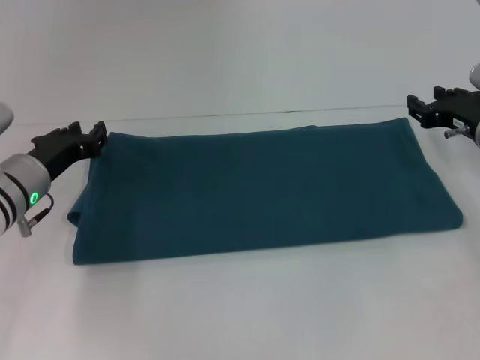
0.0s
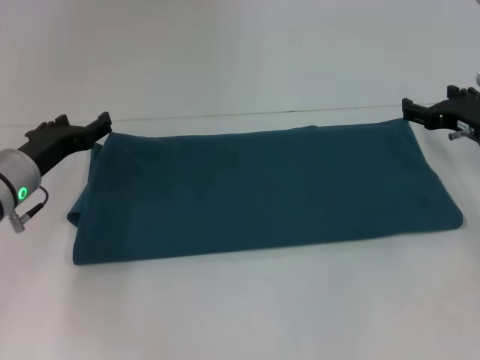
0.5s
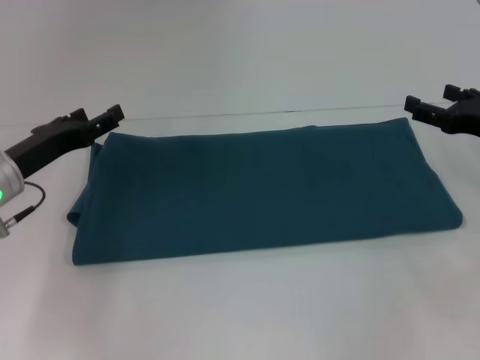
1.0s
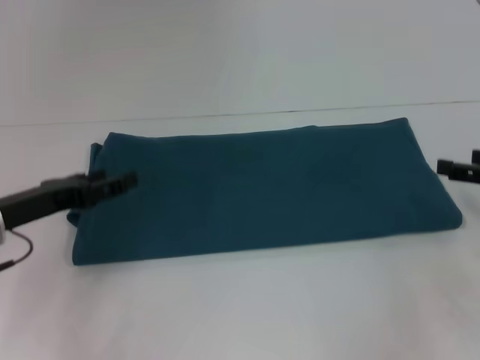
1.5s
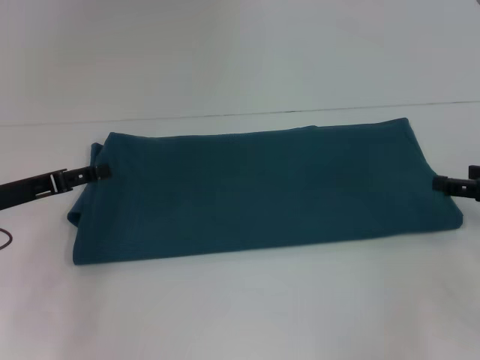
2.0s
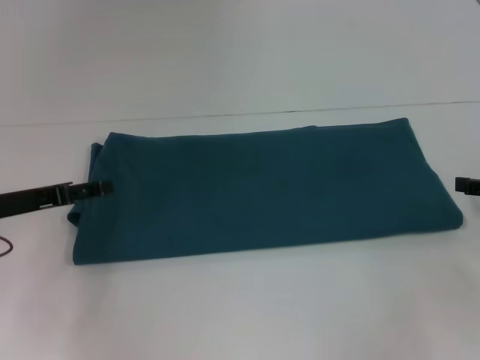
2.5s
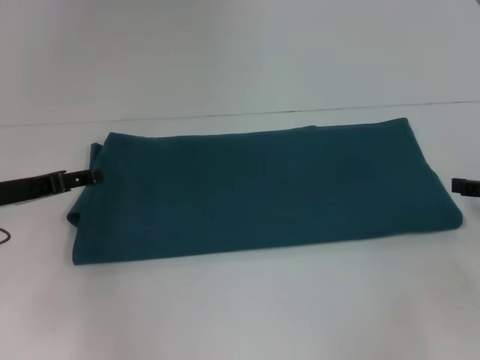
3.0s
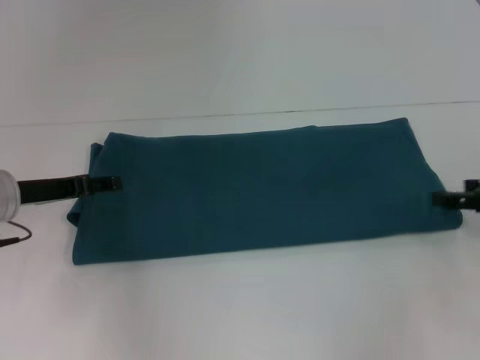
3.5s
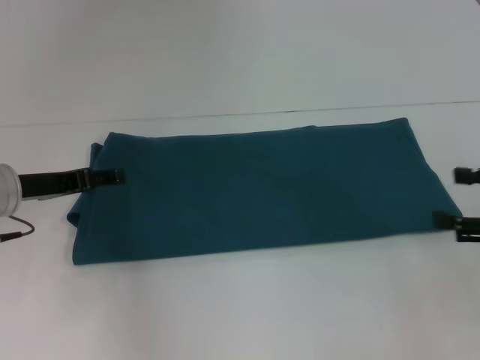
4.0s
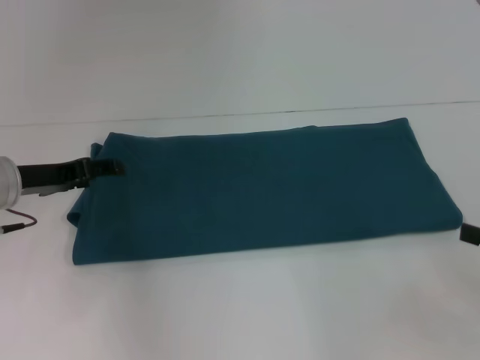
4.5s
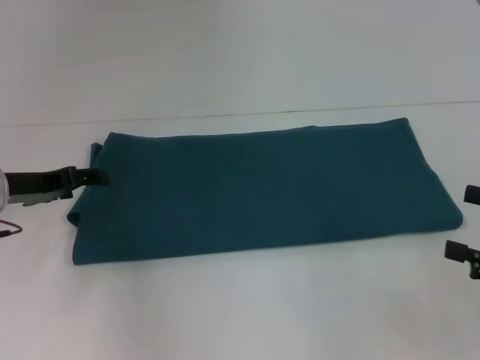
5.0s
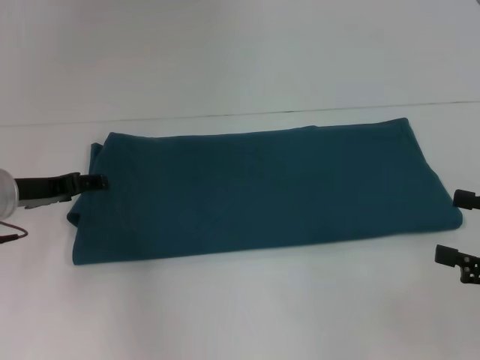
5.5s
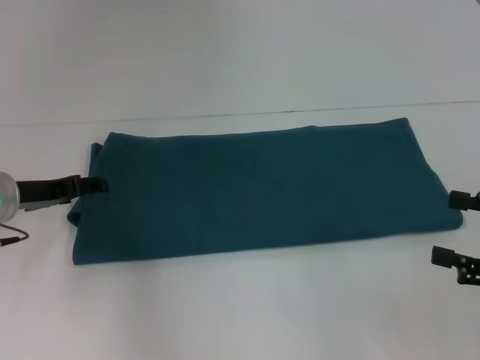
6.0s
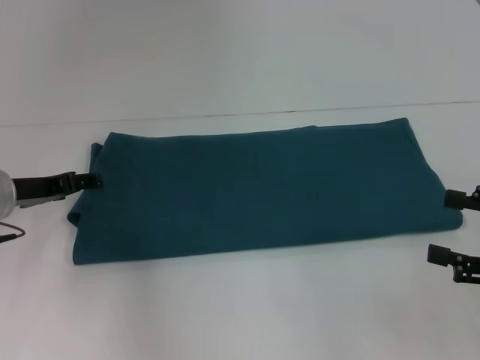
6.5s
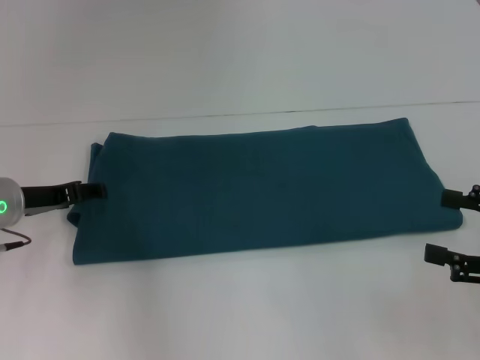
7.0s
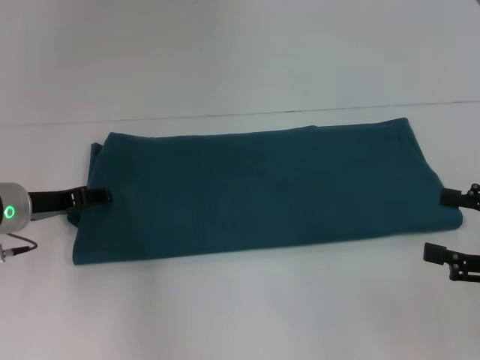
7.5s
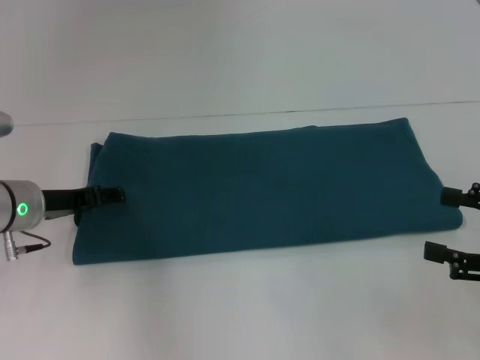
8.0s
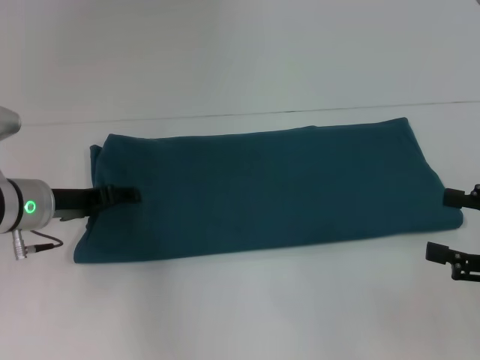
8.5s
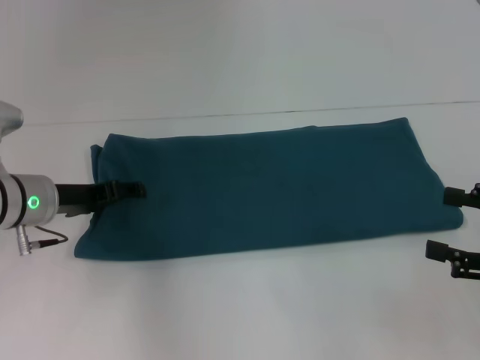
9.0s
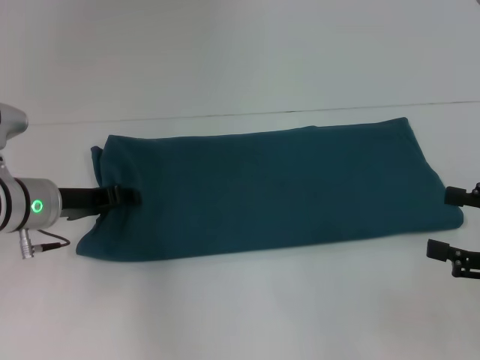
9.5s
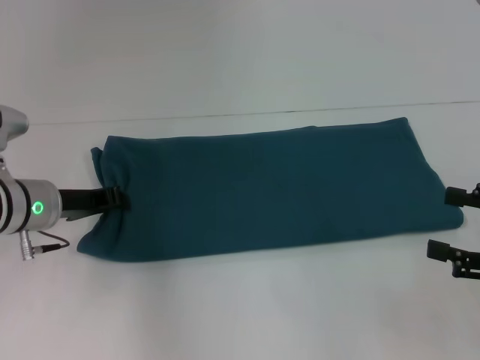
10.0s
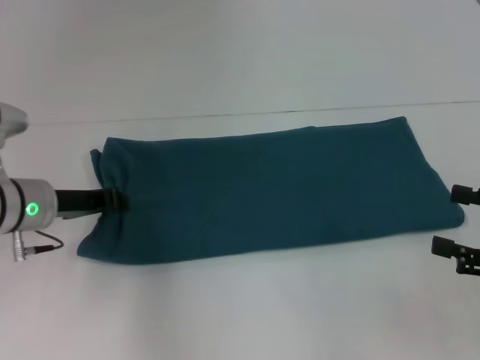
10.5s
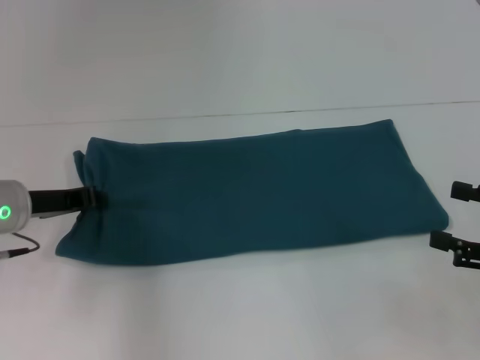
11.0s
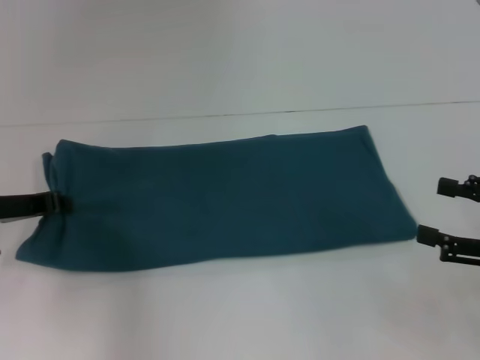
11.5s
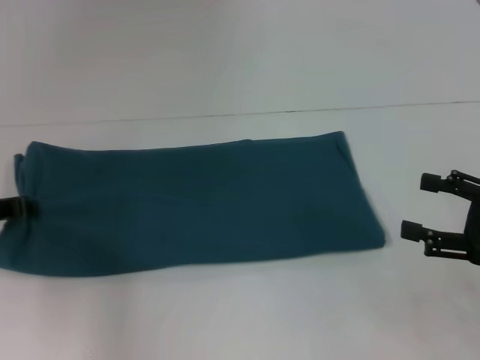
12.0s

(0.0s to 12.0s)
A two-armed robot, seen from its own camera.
0.0s - 2.0s: The left gripper shifts roughly 5 cm to the left, and opens its fingers. Meanwhile the right gripper goes approximately 10 cm backward and to the right, and opens.
2.0s - 4.0s: The right gripper heads backward, covering about 5 cm.
4.0s - 8.0s: There are only small adjustments of the grippers.
8.0s - 10.0s: The left gripper closes its fingers.
10.0s - 12.0s: The left gripper shifts approximately 10 cm to the left.

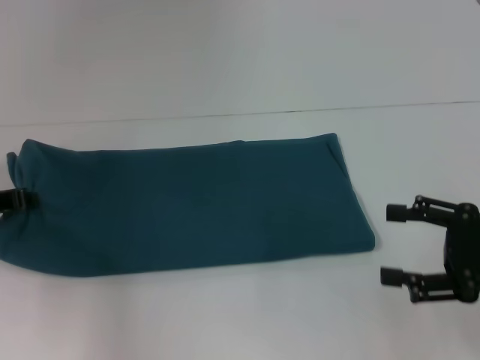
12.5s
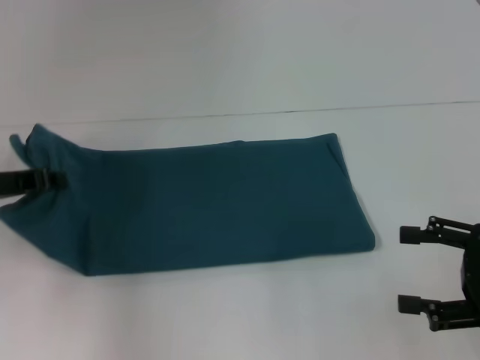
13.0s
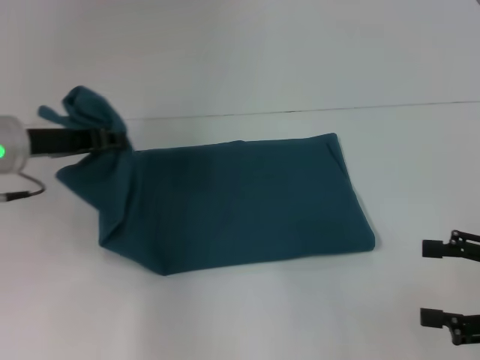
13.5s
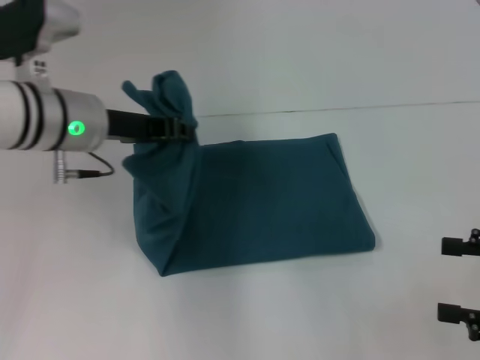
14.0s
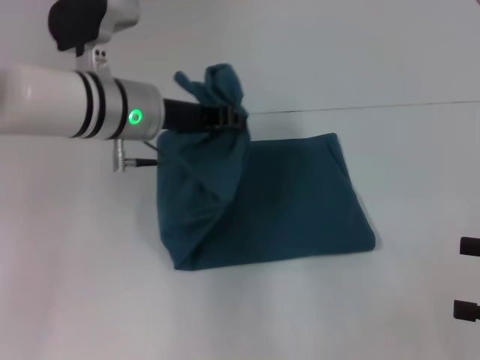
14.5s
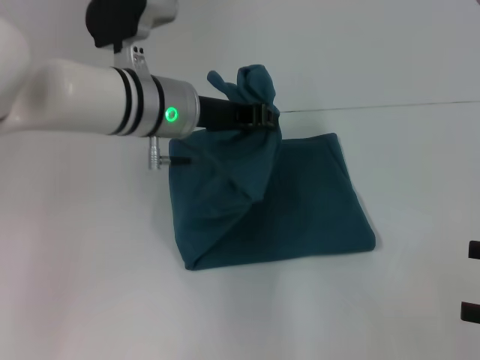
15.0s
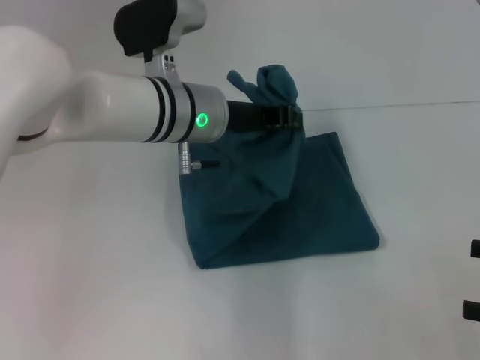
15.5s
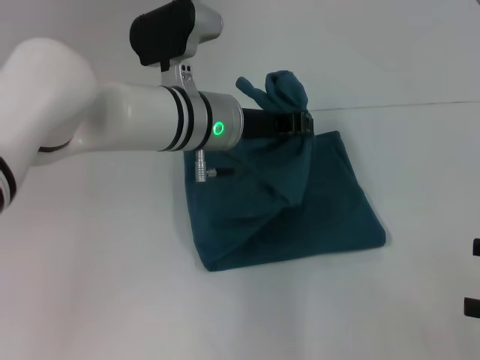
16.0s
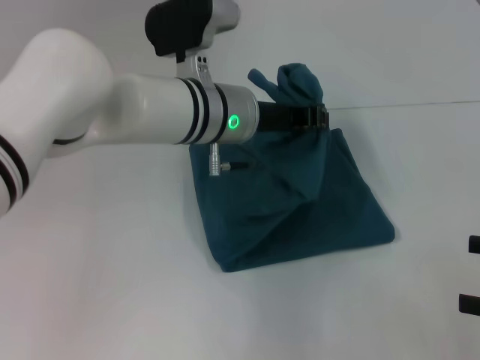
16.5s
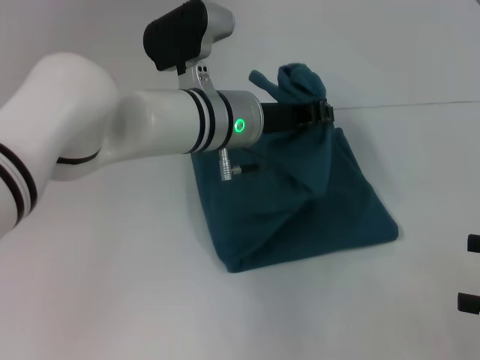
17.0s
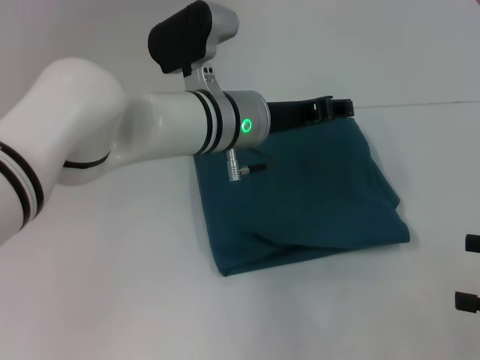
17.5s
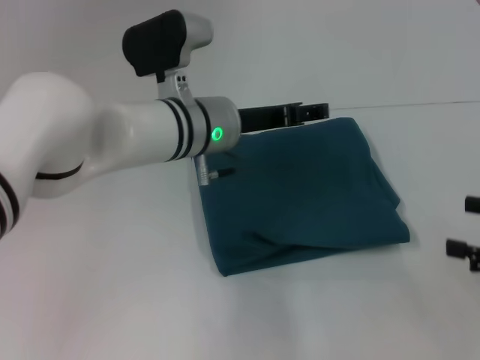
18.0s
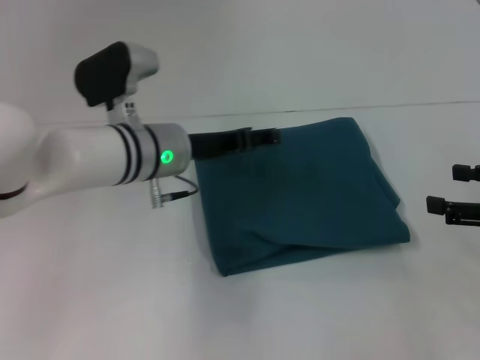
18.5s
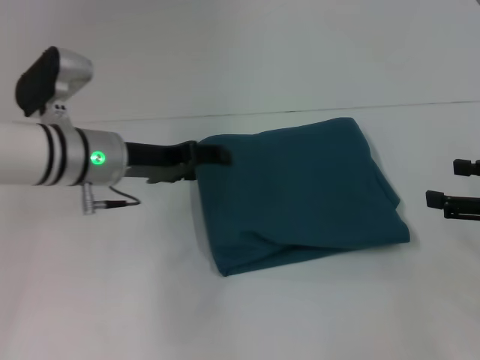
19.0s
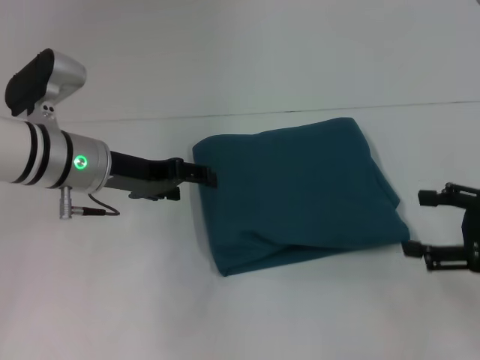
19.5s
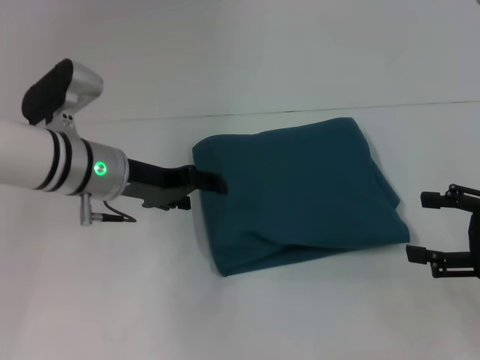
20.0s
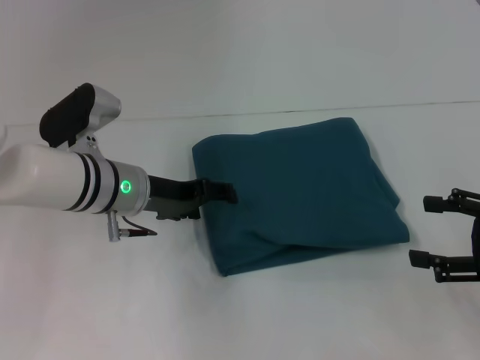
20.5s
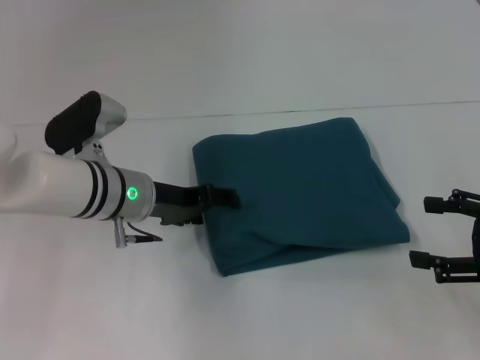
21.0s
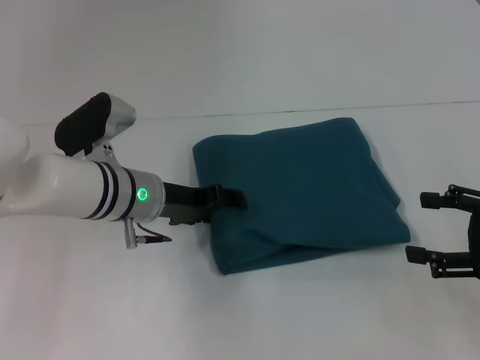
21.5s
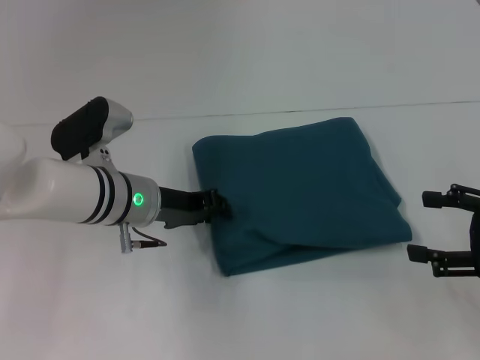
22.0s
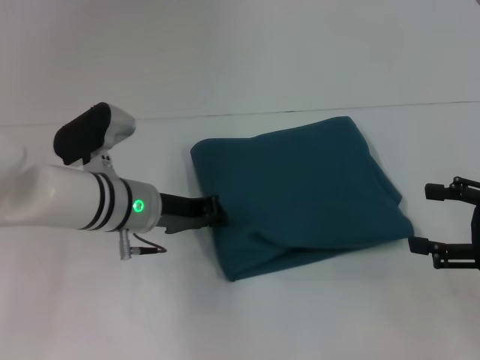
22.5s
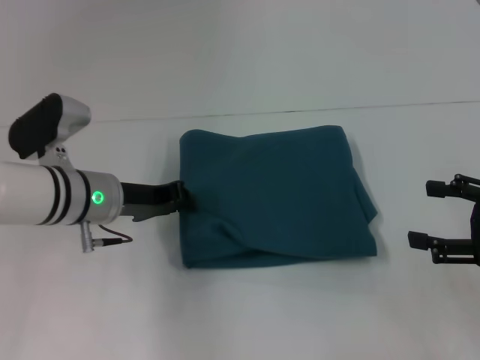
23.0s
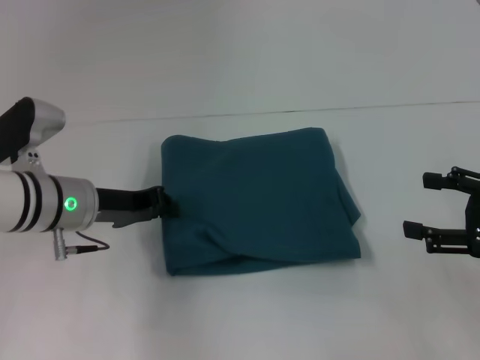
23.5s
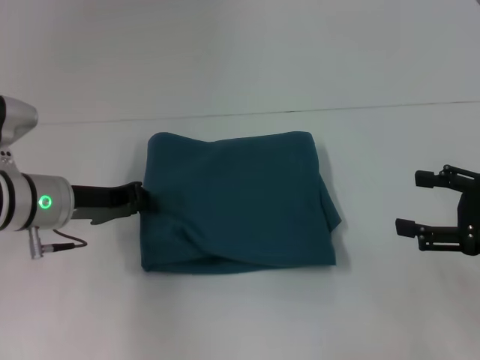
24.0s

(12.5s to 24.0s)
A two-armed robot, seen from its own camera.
Step, 12.5s - 17.5s: Fold the clothes to the left.
12.5s - 14.5s: The left gripper travels to the right by some 20 cm. The right gripper is displaced to the right by about 5 cm.
14.5s - 16.5s: The left gripper heads to the right, covering about 10 cm.
16.5s - 18.5s: The left gripper heads to the left, covering roughly 5 cm, and opens its fingers. Meanwhile the right gripper is displaced forward by roughly 10 cm.
18.5s - 20.0s: The left gripper travels to the left by some 5 cm.
20.0s - 22.0s: The left gripper moves approximately 5 cm.
22.0s - 24.0s: The left gripper heads to the left, covering some 10 cm, and closes.

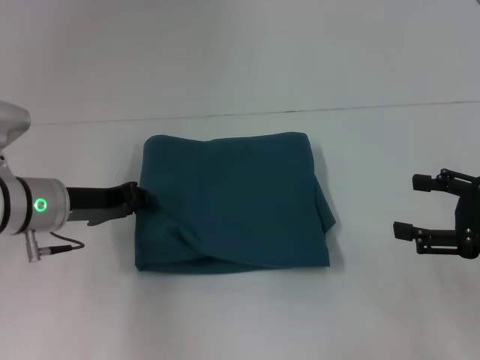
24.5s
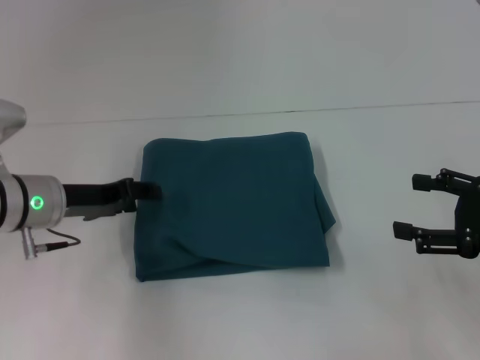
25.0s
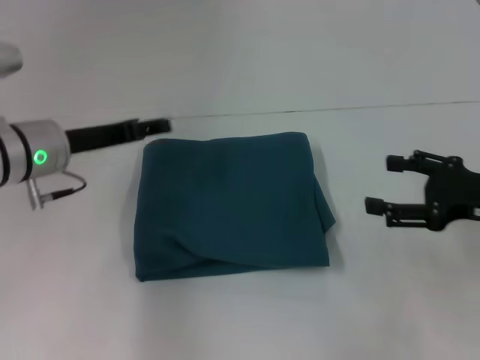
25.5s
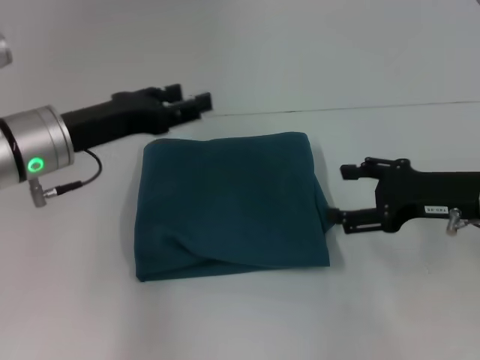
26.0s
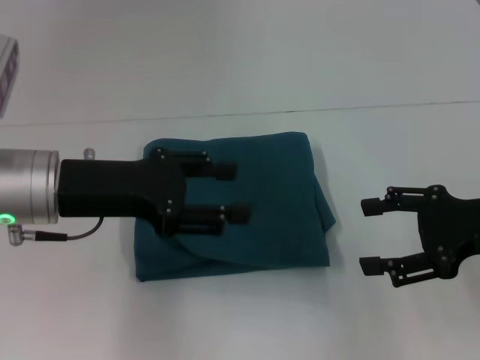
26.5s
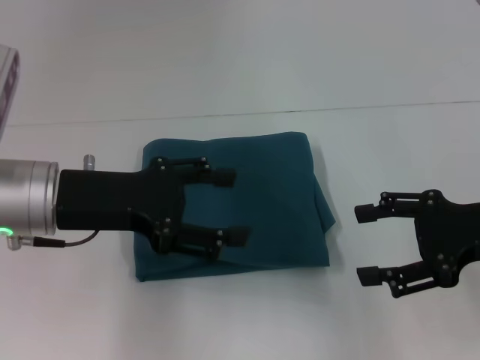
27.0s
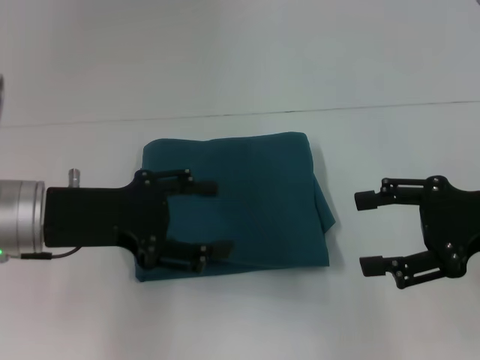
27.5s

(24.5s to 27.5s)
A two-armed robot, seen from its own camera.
24.5s - 26.0s: The left gripper is displaced upward by some 5 cm, and opens up, while the right gripper shifts about 10 cm to the left and forward.
26.0s - 27.5s: The left gripper shifts roughly 5 cm backward; the right gripper moves upward, about 5 cm.
